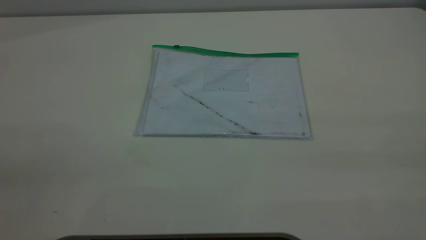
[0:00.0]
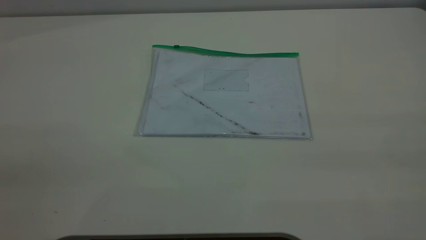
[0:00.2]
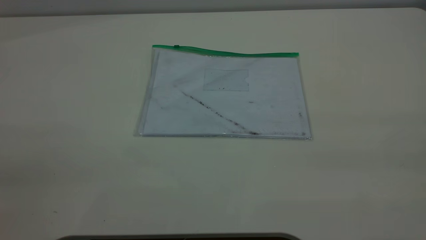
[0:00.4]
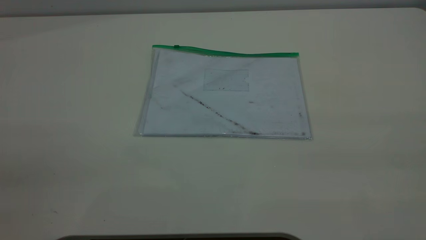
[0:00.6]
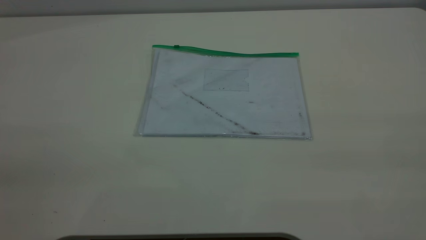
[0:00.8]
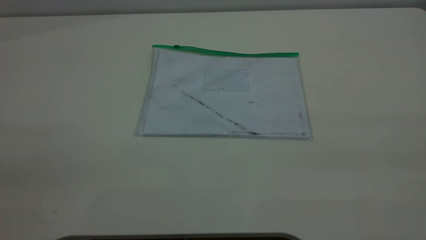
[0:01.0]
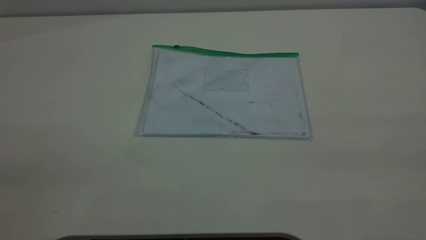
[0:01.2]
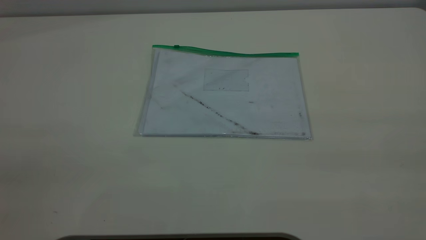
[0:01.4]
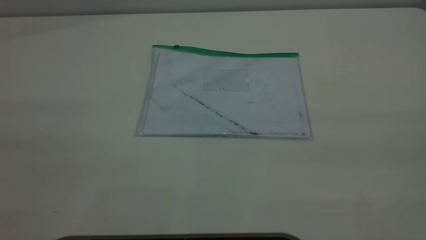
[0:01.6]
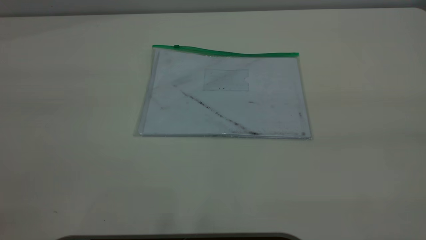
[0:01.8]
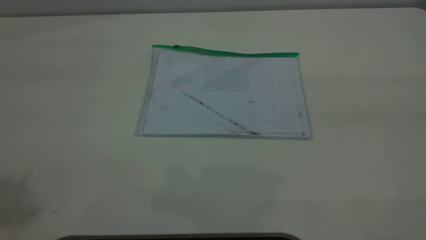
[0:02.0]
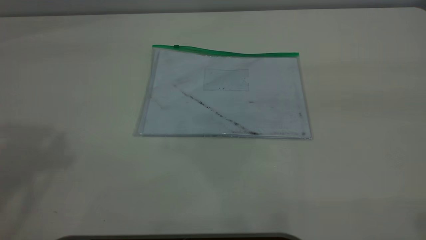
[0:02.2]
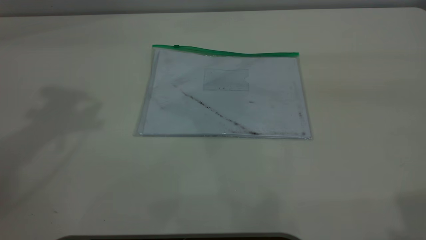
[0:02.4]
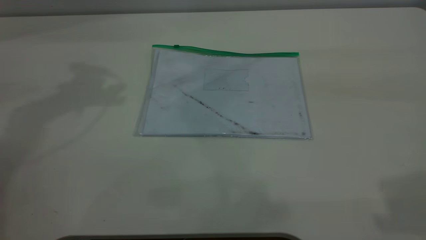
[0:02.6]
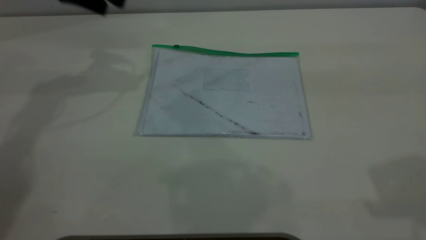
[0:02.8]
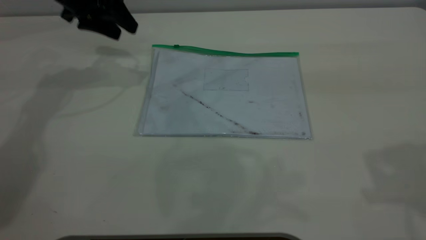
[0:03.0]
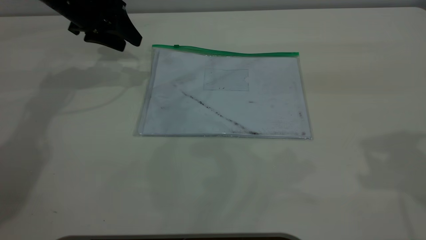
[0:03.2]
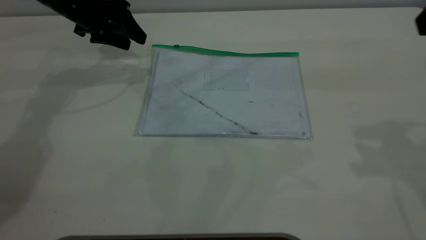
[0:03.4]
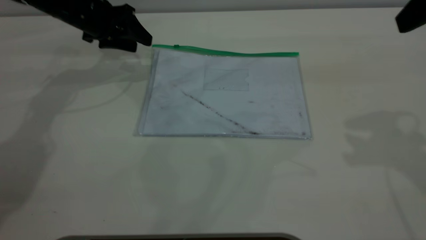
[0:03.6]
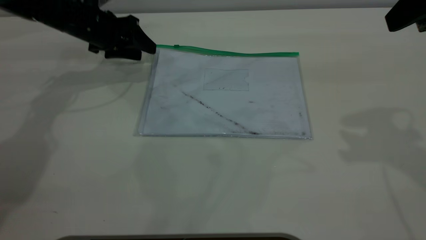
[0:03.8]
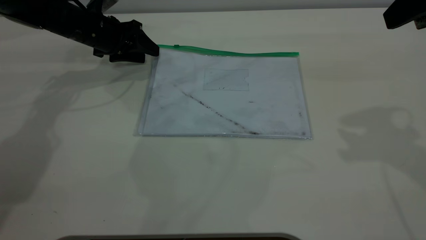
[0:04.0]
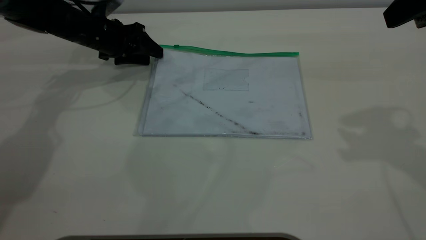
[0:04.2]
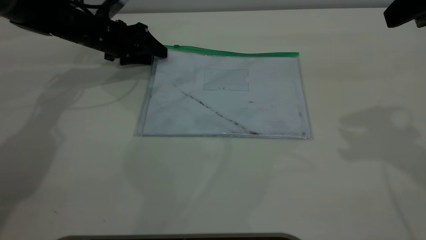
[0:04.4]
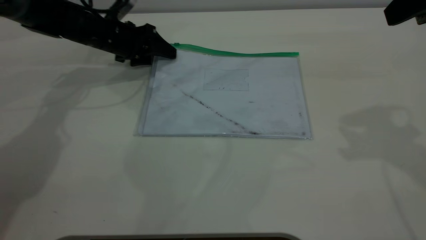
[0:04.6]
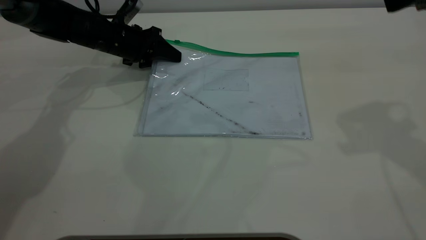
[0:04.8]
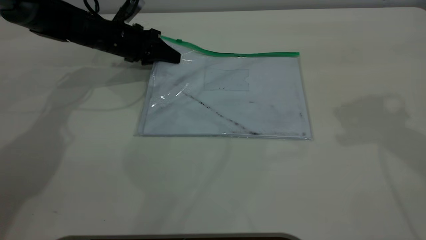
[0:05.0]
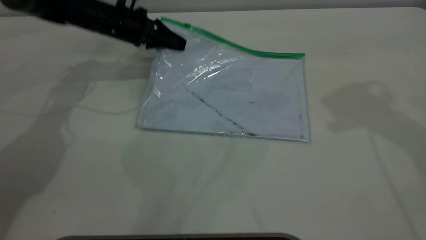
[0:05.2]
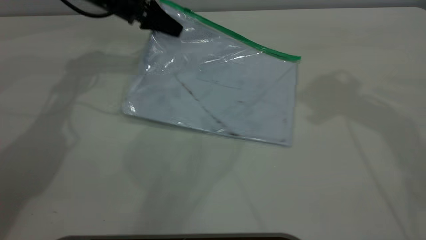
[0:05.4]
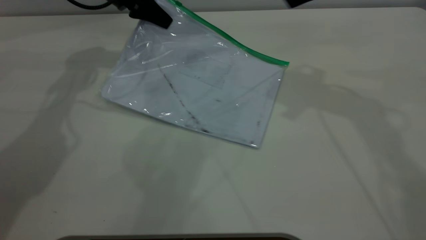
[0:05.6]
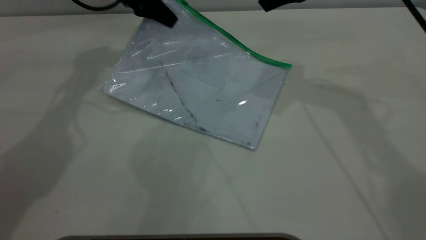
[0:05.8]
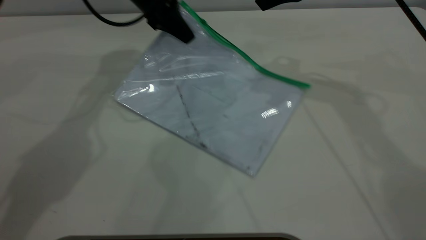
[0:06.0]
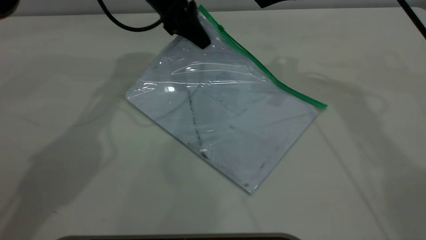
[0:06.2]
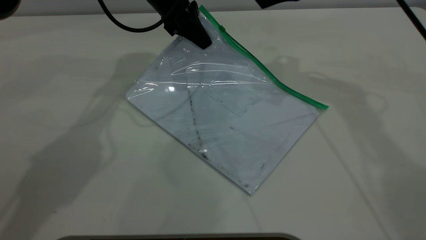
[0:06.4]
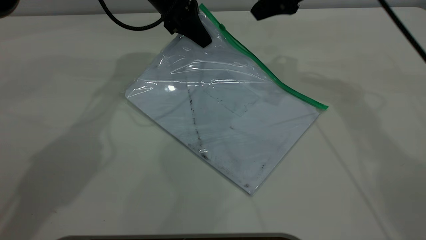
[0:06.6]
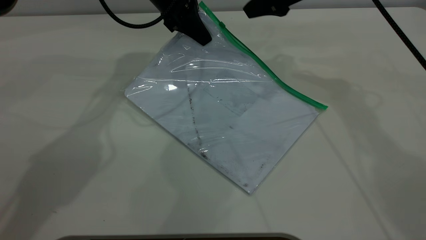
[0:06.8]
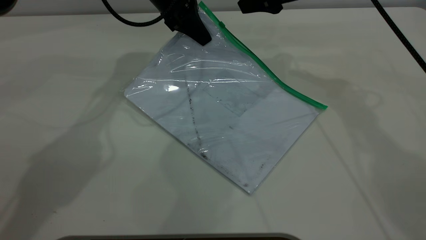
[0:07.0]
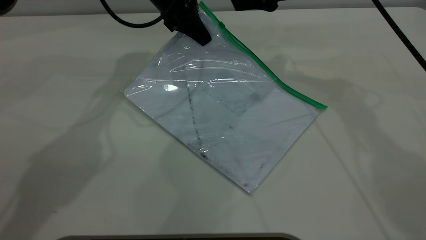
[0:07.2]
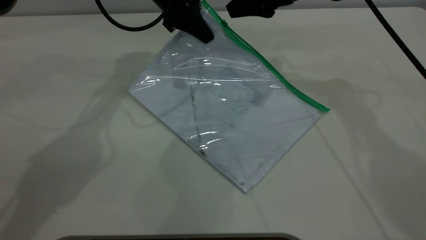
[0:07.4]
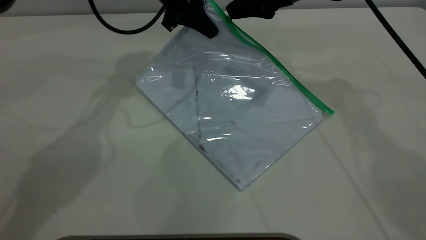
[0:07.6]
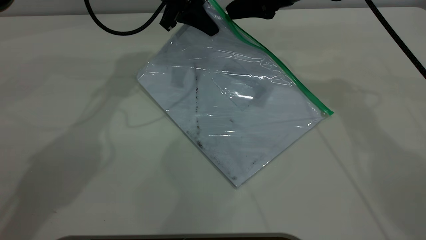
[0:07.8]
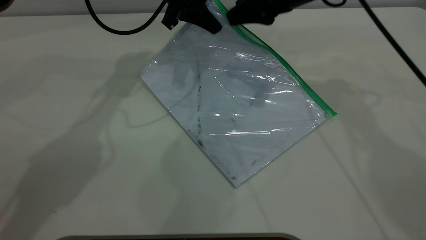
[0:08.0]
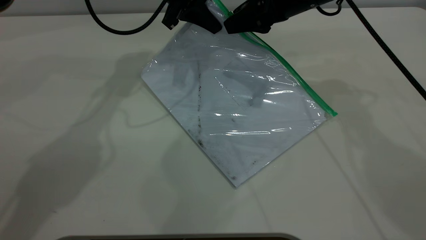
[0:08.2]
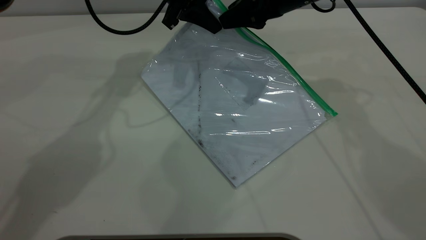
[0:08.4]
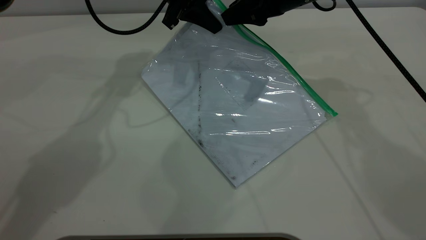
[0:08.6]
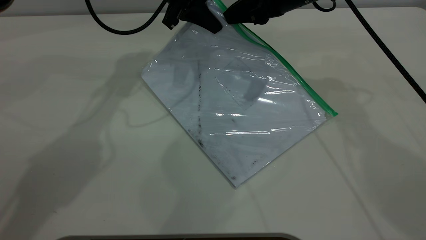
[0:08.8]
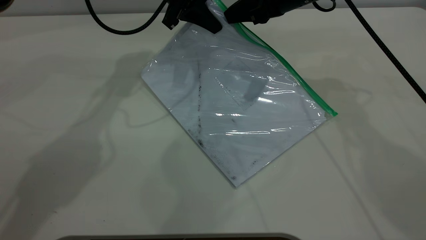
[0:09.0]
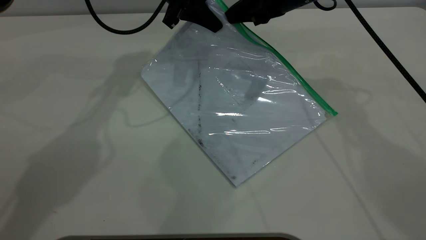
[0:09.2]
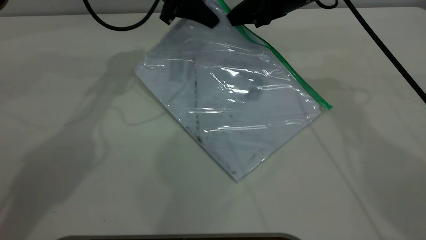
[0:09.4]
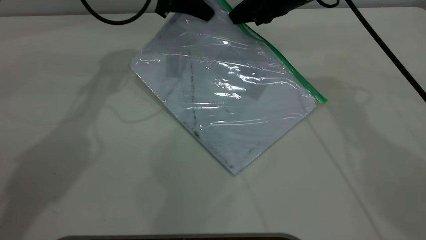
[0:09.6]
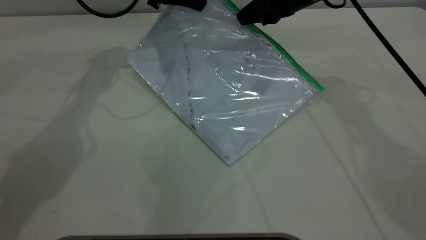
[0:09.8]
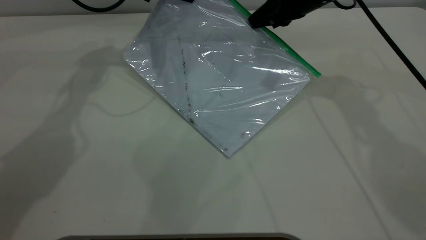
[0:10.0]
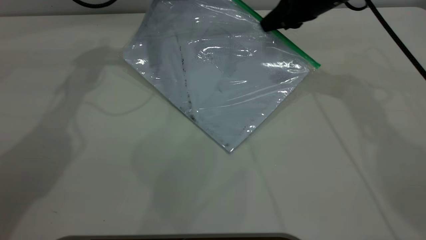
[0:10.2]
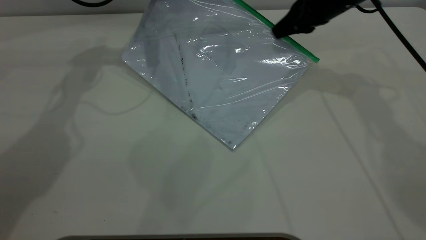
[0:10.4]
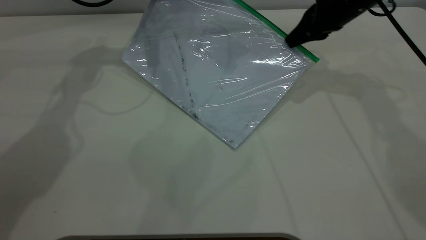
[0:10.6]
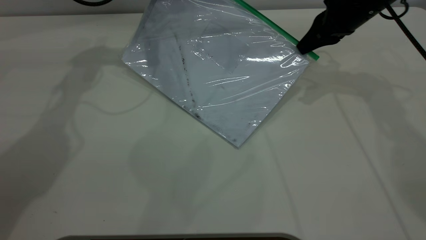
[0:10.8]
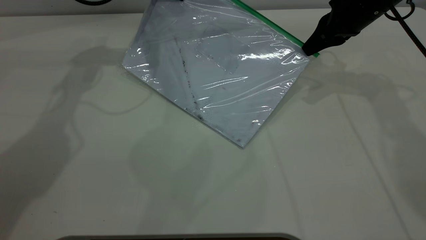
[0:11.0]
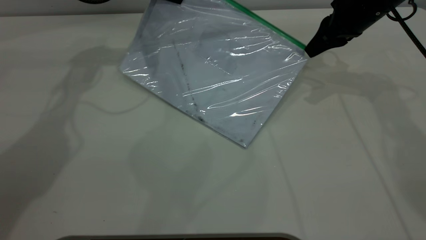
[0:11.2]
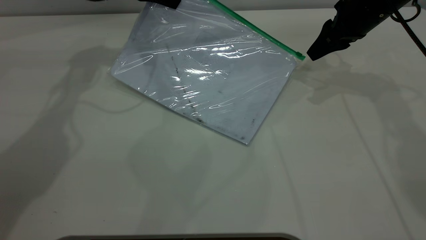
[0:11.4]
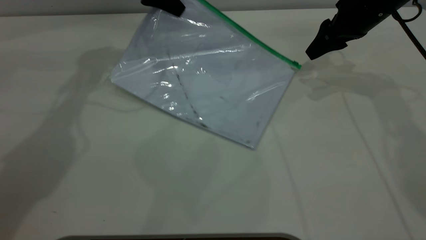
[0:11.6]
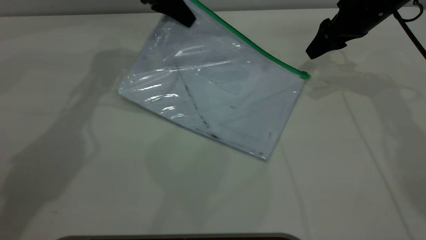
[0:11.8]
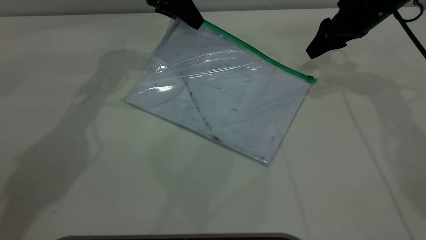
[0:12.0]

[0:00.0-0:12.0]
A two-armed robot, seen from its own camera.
Step, 0:00.0 to 0:05.4: Pick up the transparent plastic bag with the left gripper.
Step, 0:05.6 to 0:11.4: Pulling up the zipper on the transparent plastic bag with the right gripper to close it.
0:01.6 to 0:03.0: The left gripper is displaced forward and downward by about 50 cm.
0:03.0 to 0:04.4: The left gripper is displaced downward by some 10 cm. The right gripper shifts some 5 cm forward.
0:04.4 to 0:06.0: The right gripper moves forward and to the left, approximately 20 cm, while the left gripper heads to the right and upward, covering approximately 15 cm, and closes up.
0:06.0 to 0:07.6: The right gripper shifts by roughly 5 cm.
0:07.6 to 0:09.0: The right gripper closes up.
0:09.0 to 0:10.4: The right gripper goes some 5 cm to the right, while the left gripper moves to the left, approximately 10 cm.
0:10.4 to 0:12.0: The left gripper shifts by some 5 cm, and opens up. Meanwhile the right gripper opens its fingers.

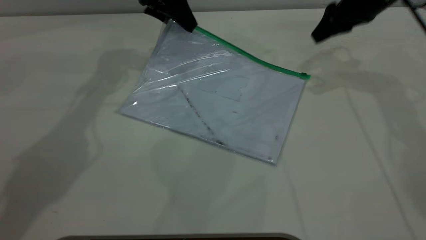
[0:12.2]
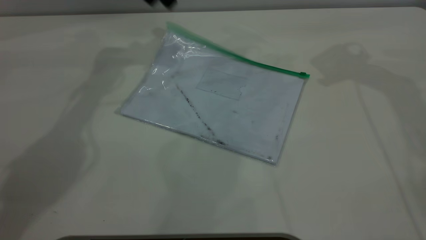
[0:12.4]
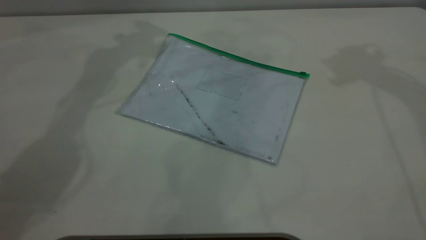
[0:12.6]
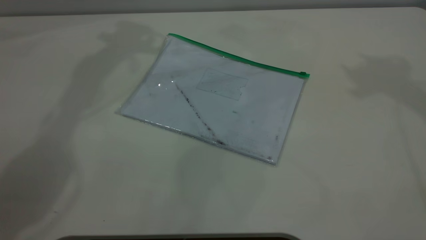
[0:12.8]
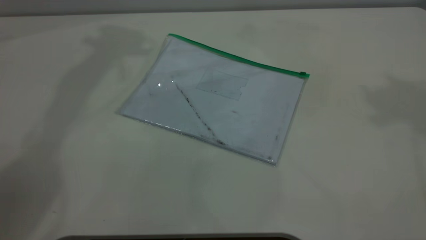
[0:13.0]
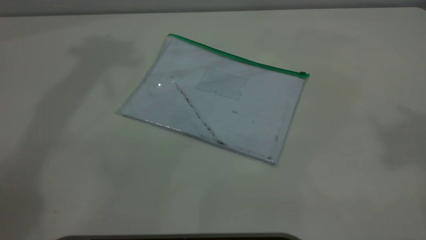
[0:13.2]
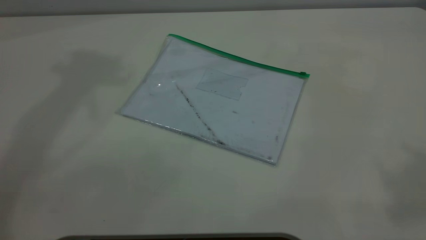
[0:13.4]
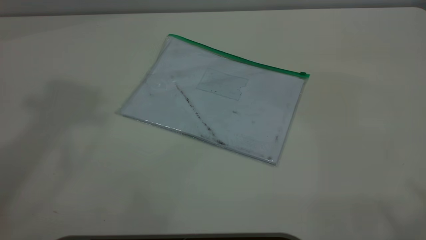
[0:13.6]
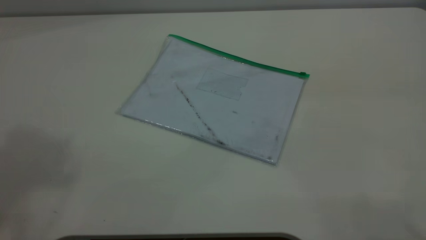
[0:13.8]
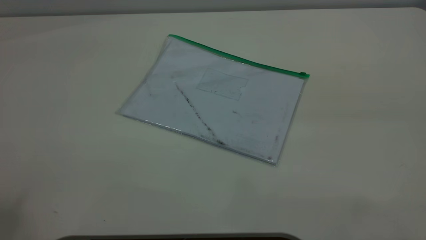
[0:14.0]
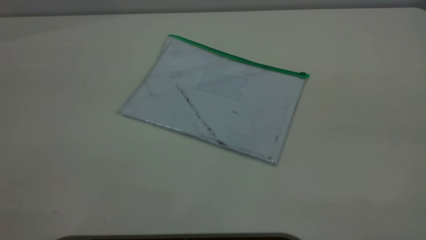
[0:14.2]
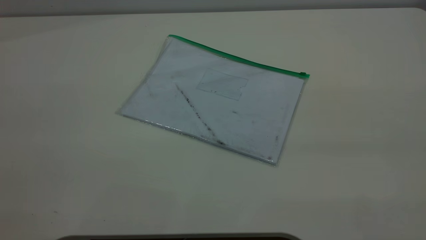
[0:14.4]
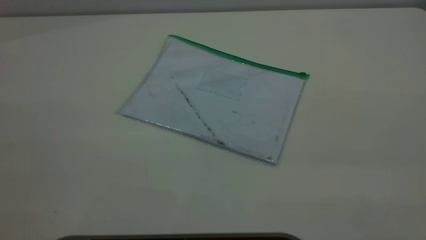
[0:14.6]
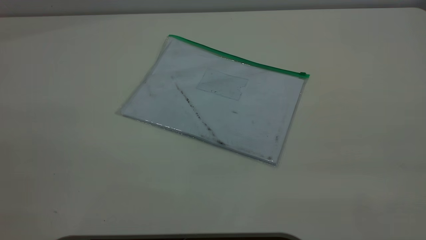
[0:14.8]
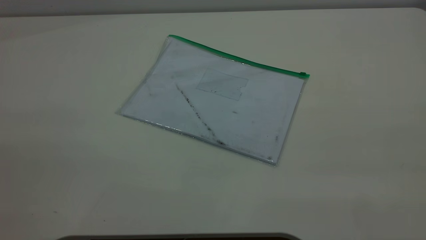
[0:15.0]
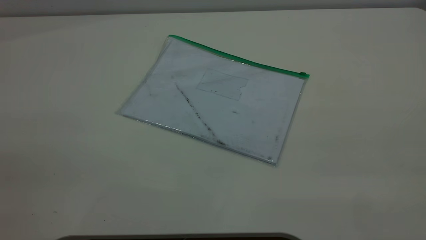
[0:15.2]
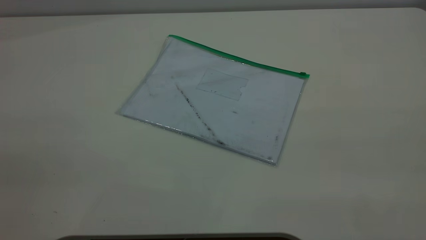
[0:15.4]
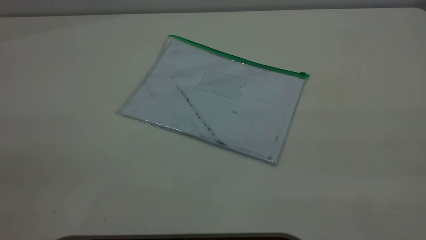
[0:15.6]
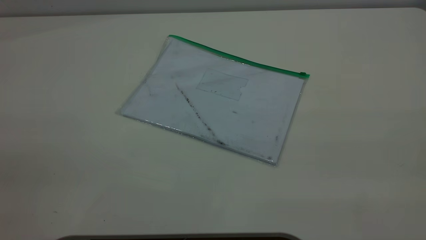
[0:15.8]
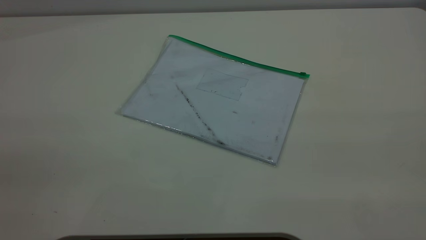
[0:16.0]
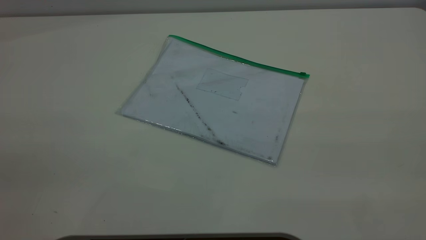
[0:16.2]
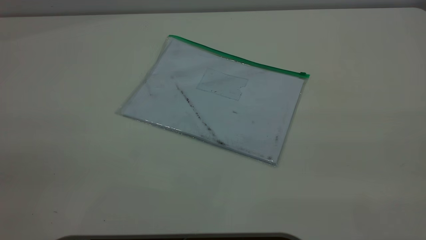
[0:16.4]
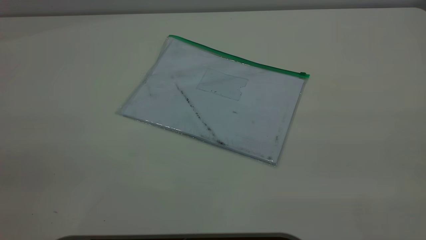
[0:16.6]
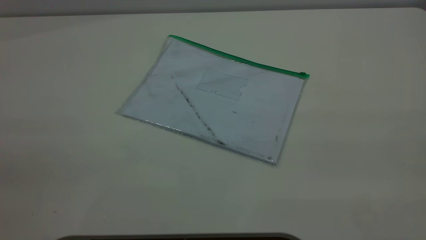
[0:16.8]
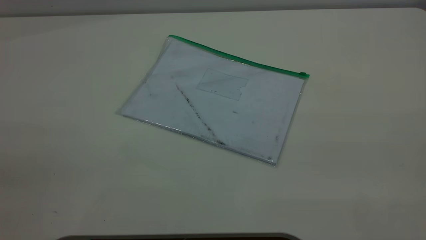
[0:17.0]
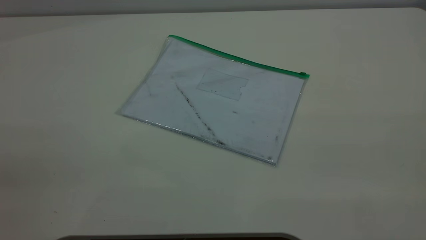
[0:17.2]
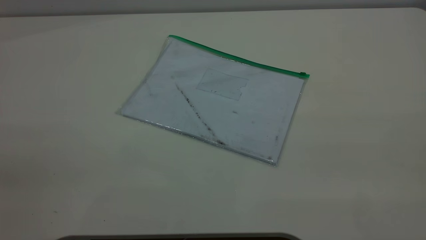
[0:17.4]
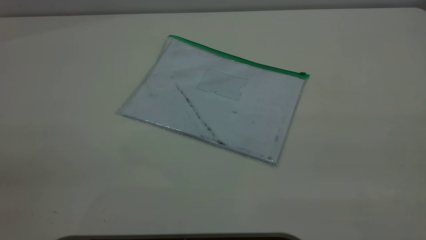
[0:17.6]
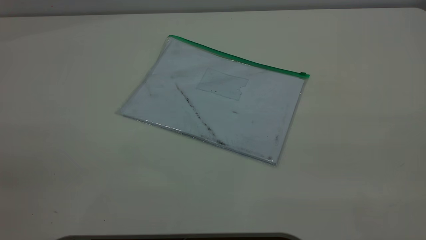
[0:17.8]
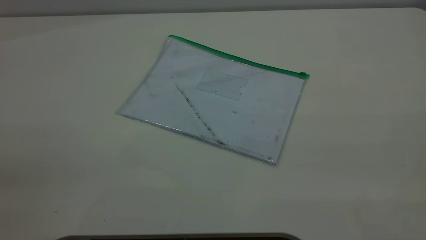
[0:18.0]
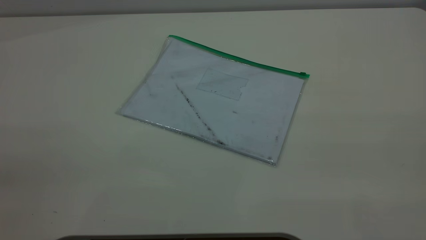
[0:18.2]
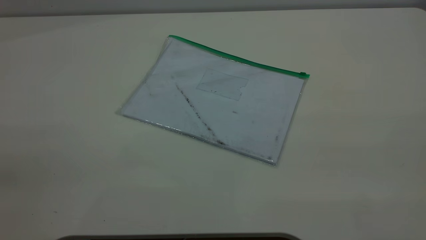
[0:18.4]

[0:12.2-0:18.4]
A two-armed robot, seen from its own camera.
0:12.2 to 0:13.8: The left gripper goes some 50 cm upward and backward. Meanwhile the right gripper goes roughly 50 cm backward and upward.
